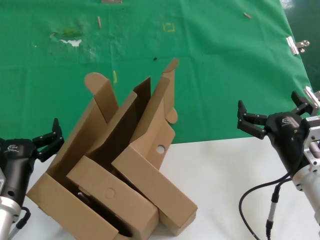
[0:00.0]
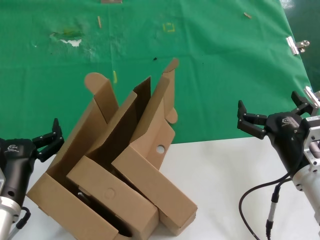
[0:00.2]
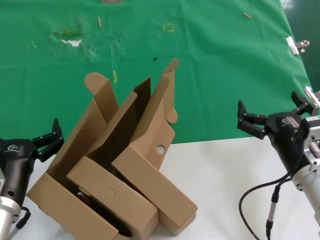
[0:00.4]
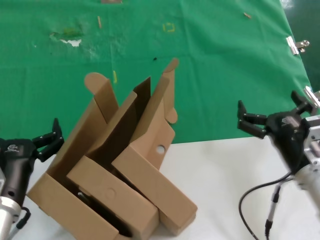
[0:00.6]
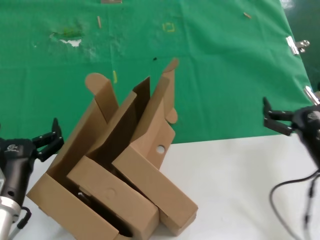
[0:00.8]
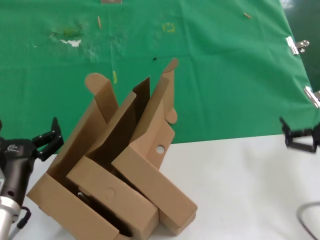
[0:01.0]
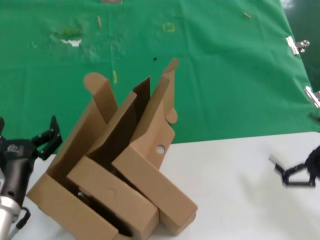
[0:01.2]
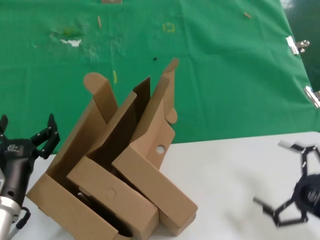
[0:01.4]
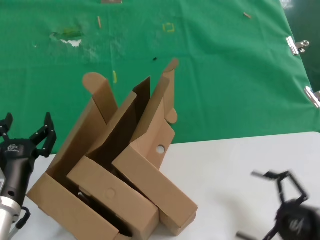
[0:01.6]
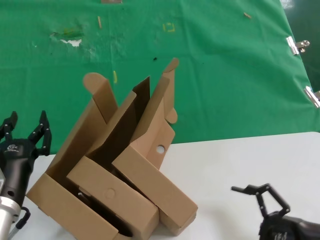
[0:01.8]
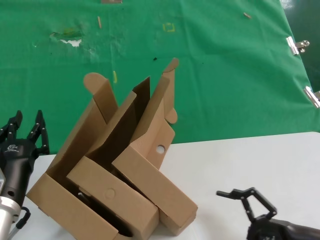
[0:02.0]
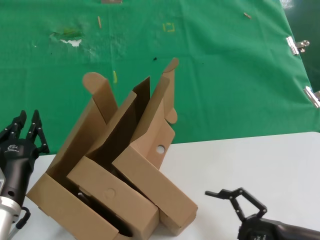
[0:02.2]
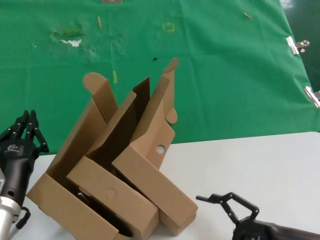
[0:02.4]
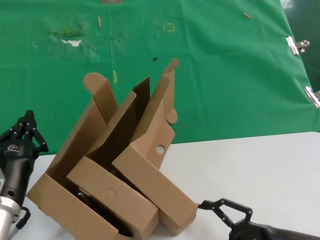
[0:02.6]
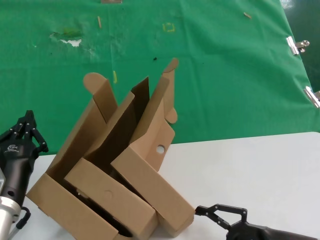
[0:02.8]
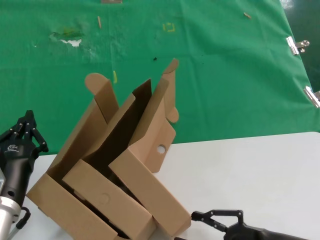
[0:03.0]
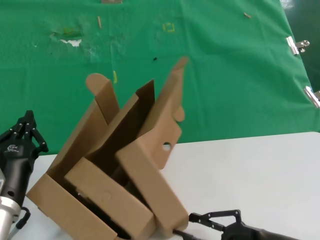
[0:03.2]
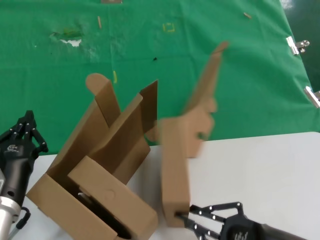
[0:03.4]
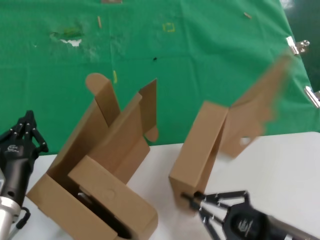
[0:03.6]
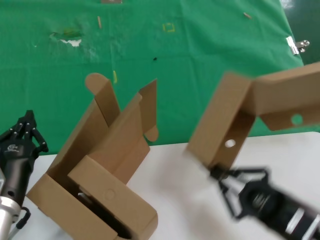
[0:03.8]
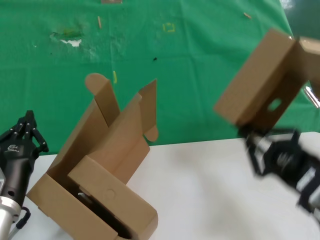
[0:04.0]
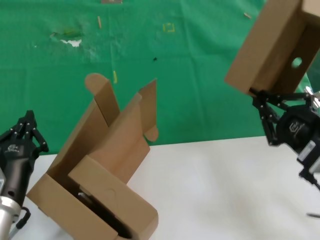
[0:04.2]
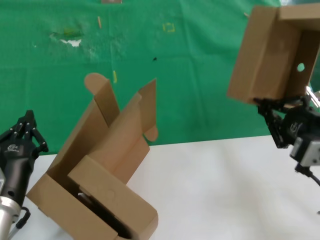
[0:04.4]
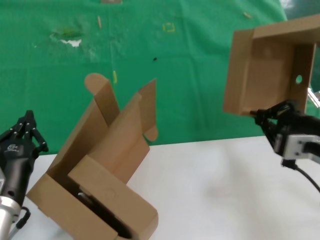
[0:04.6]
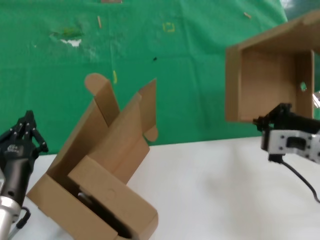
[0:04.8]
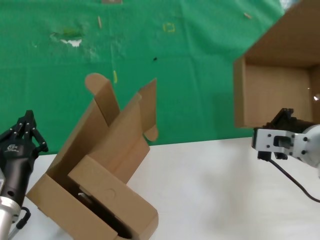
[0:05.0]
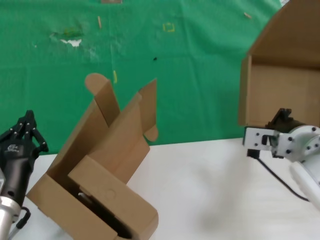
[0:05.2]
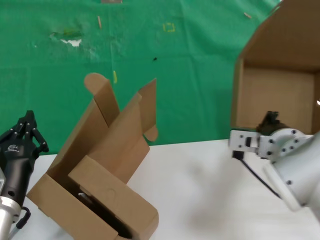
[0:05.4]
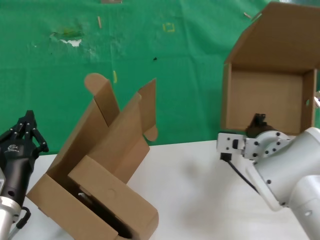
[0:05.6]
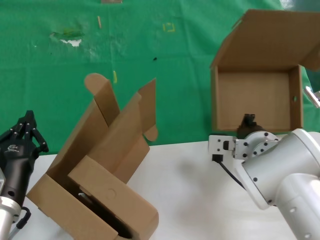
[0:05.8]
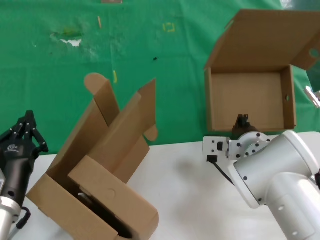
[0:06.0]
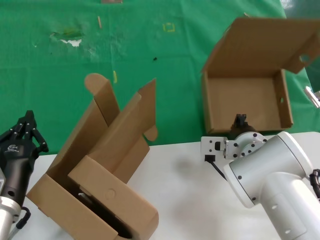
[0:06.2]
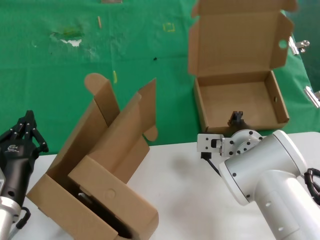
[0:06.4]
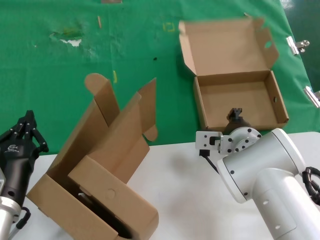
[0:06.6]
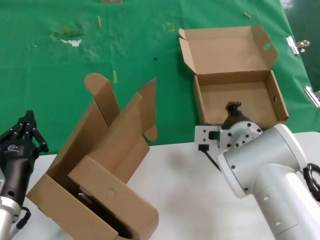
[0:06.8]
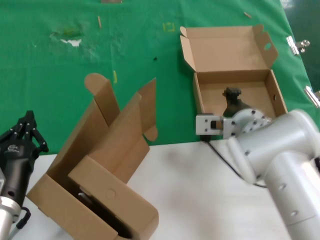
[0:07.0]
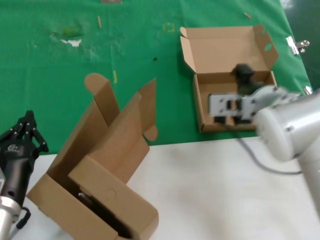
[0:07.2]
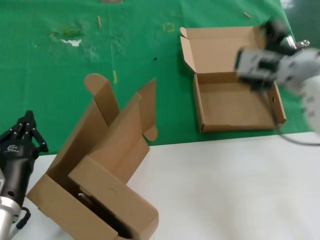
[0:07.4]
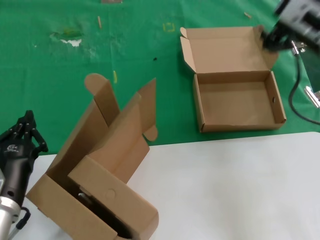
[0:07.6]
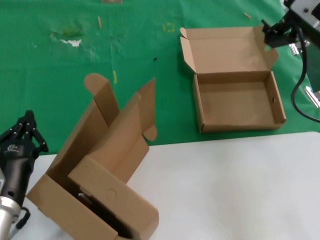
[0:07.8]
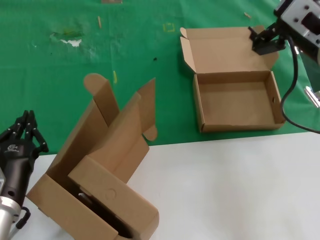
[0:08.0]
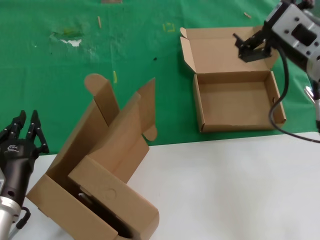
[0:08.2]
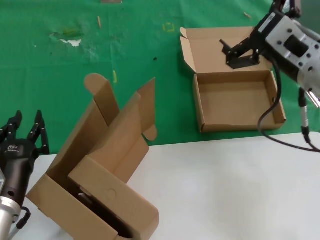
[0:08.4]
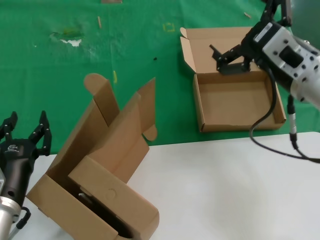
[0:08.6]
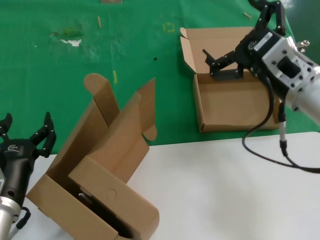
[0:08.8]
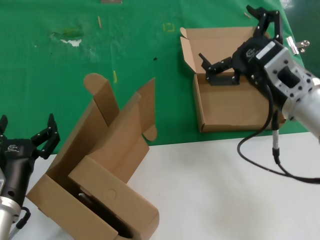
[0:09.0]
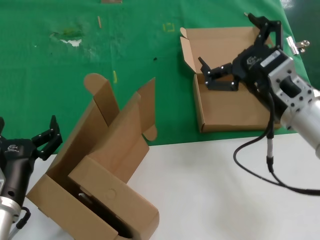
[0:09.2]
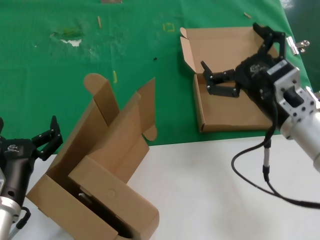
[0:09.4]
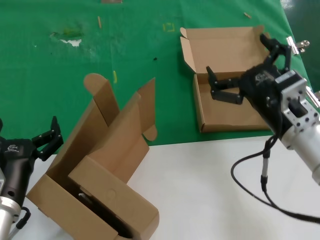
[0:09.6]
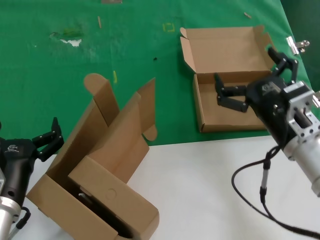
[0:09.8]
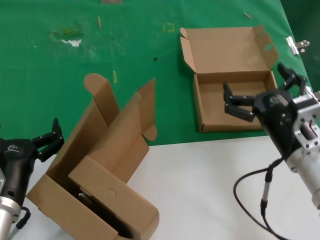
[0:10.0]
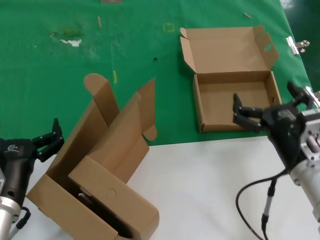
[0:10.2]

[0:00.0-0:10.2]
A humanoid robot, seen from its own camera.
Task of the whole recording: pick up the paper box and put it at the back.
Step, 0:00.0 to 0:03.4: Grasp the paper box.
Step, 0:03.6 to 0:07.0: Place the paper box on the table.
0:00.0 to 0:01.4: The right hand shifts roughly 15 cm to the right.
0:01.4 to 0:03.0: The right hand shifts about 10 cm to the left.
0:03.0 to 0:04.4: The right hand shifts some 20 cm upward.
0:04.4 to 0:05.8: The right hand heads to the left, forward and downward, covering some 20 cm.
0:05.8 to 0:07.2: The right hand goes approximately 10 cm upward.
0:07.2 to 0:08.8: The right hand moves to the right, some 5 cm, and reaches about 10 cm upward, then returns.
0:08.8 to 0:10.2: The right hand is displaced downward by some 15 cm.

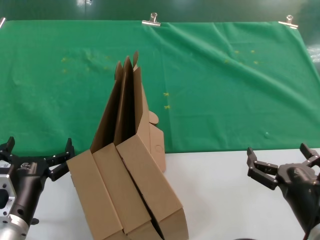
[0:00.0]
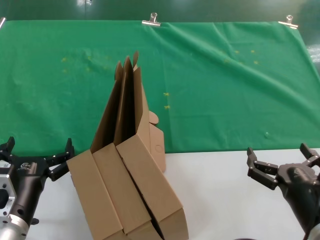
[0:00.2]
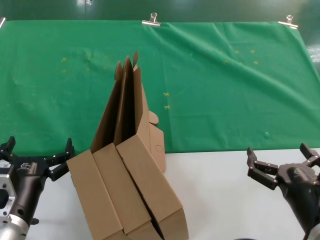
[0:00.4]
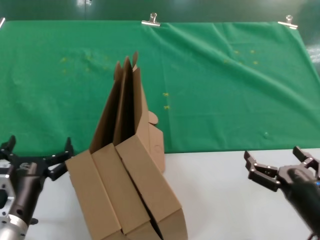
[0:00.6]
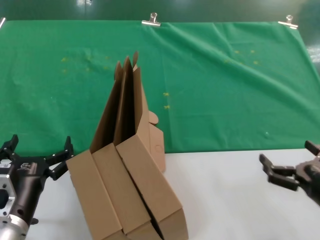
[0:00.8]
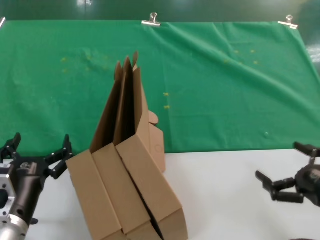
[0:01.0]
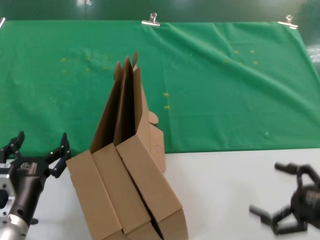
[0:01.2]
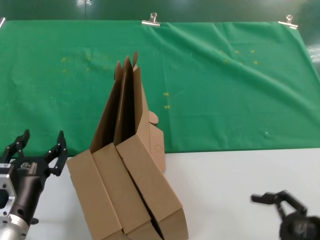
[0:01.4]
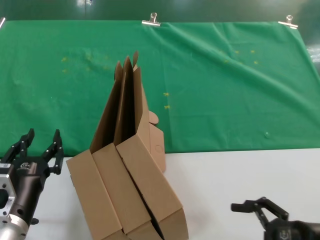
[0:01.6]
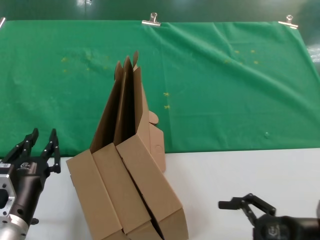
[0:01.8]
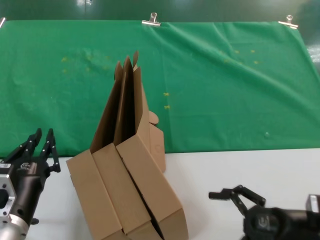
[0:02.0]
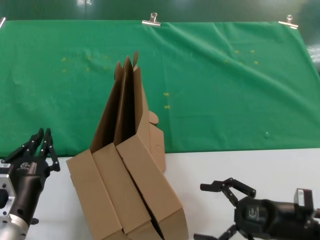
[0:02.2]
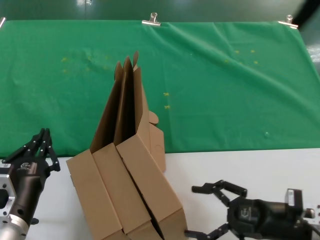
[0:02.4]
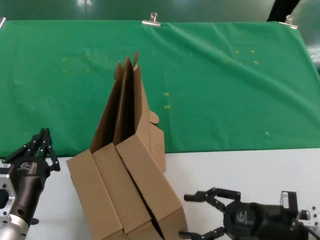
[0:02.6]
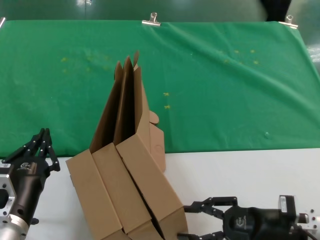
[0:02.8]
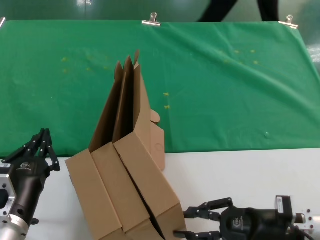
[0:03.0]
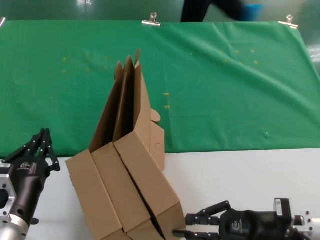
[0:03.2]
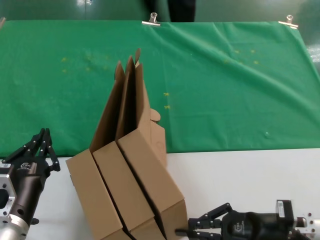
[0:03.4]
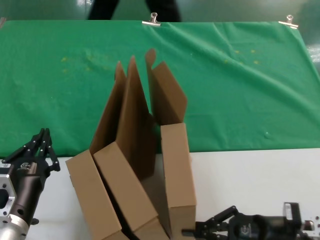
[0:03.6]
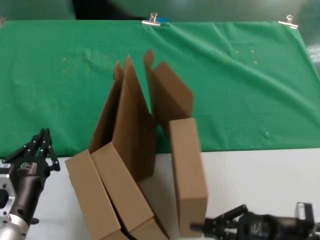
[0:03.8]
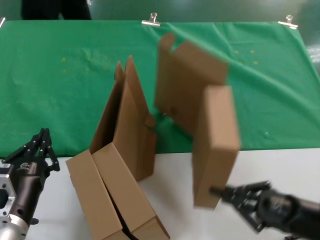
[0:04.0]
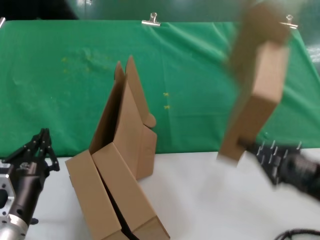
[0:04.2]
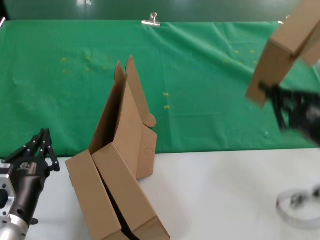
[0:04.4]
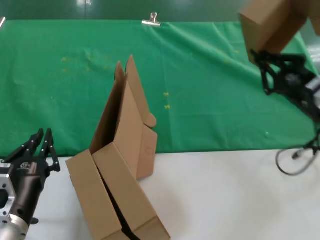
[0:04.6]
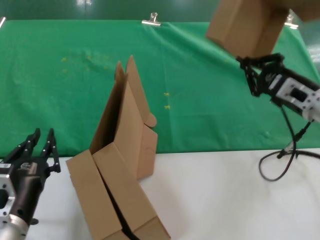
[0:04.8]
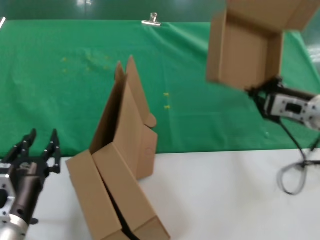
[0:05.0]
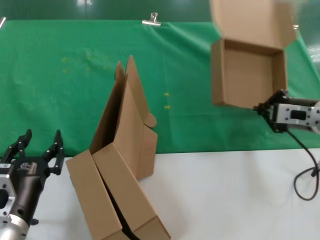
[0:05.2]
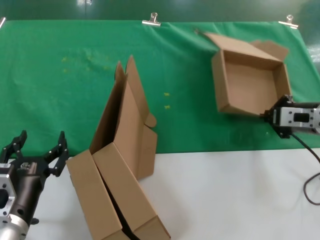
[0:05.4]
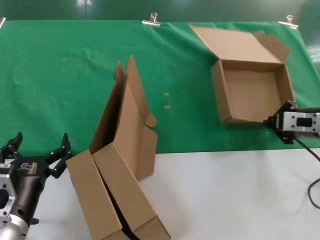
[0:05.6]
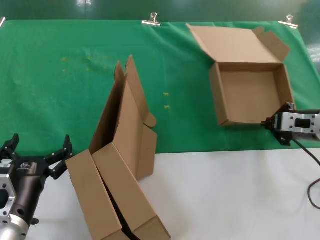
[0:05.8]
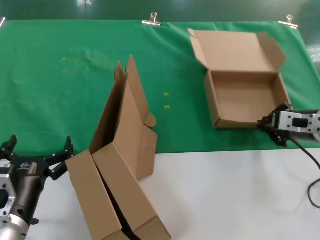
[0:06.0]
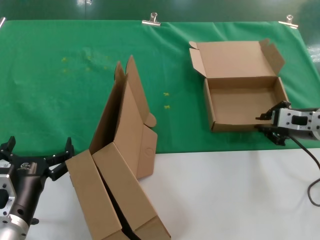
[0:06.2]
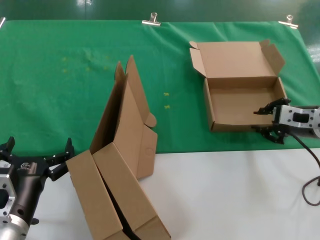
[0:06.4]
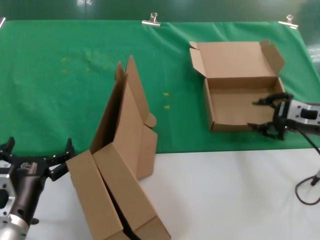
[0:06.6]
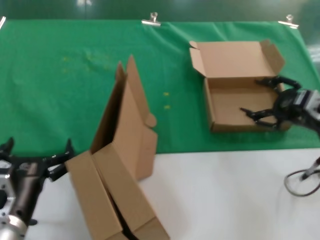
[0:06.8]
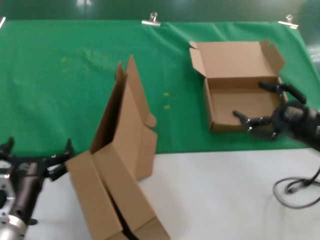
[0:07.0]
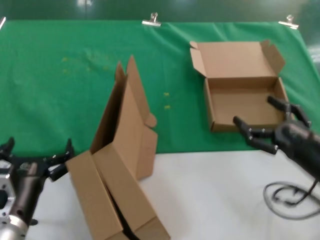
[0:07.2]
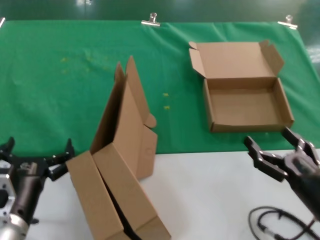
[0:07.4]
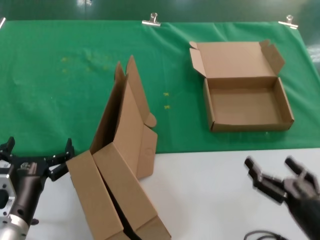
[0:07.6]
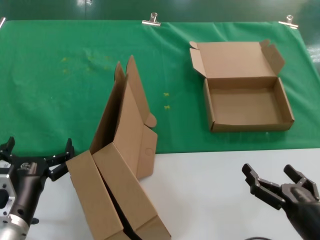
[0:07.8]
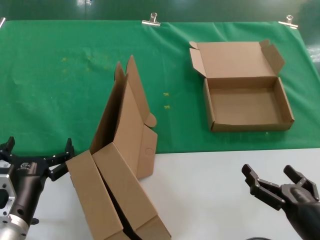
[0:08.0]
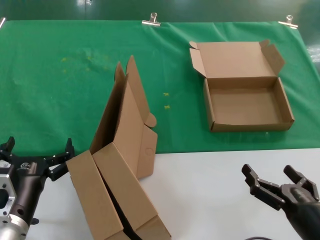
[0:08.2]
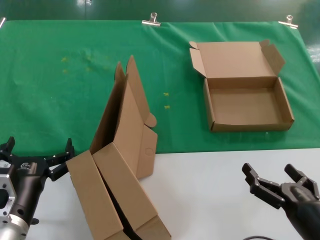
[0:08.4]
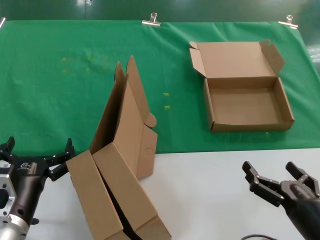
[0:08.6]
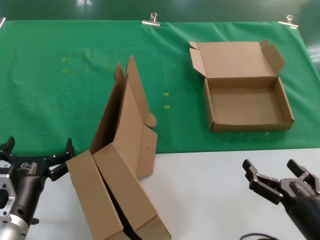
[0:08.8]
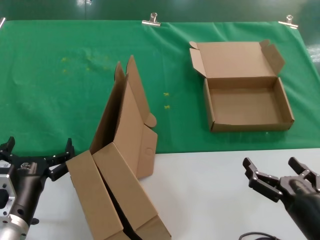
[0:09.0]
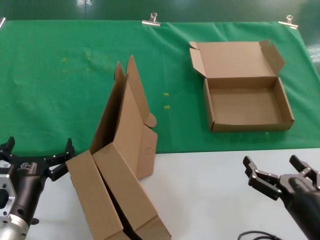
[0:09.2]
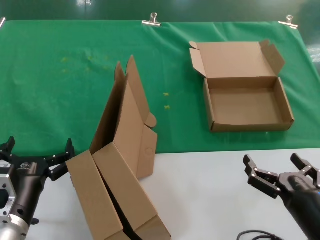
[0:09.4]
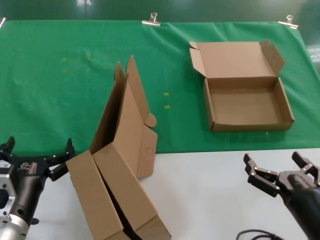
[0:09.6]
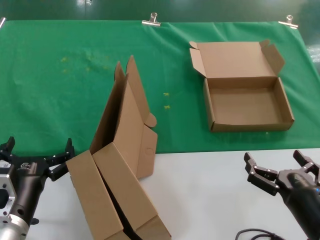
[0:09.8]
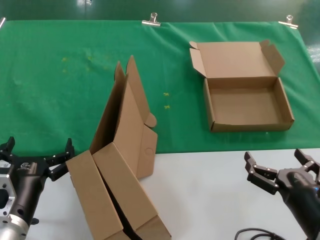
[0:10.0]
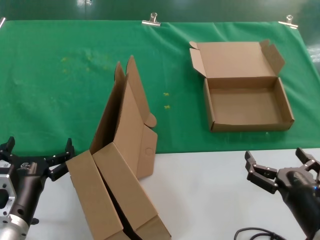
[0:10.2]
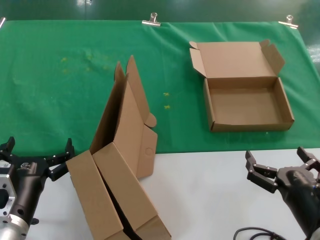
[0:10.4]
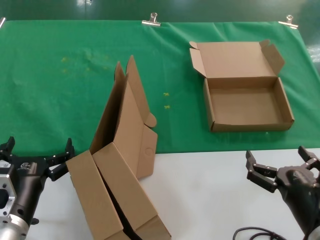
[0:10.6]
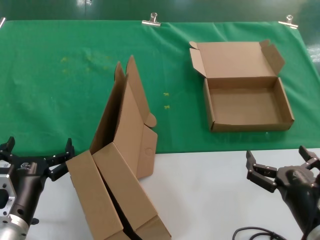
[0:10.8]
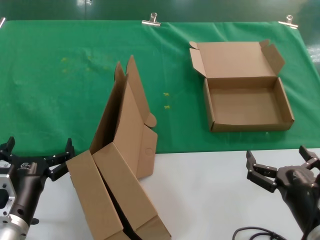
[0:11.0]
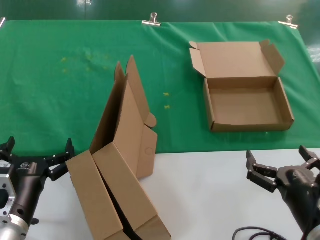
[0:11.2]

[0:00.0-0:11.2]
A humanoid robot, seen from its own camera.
Task of the whole recording: pick up the paper box and put it at the back.
Step, 0:00.0 to 0:03.2: Grasp the paper box.
Step, 0:03.6 to 0:06.0: Place the paper box on the table.
0:00.0 to 0:01.6: The right hand travels to the right by approximately 10 cm.
0:01.6 to 0:03.2: The right hand moves to the left and forward, about 10 cm.
0:03.2 to 0:04.8: The right hand shifts approximately 20 cm upward and forward.
0:06.4 to 0:08.0: The right hand goes some 30 cm backward and downward.
0:08.0 to 0:09.6: There are only small adjustments of the hands.
0:09.6 to 0:11.2: The hands move only a little.
